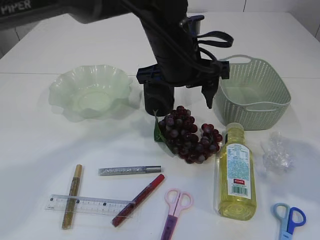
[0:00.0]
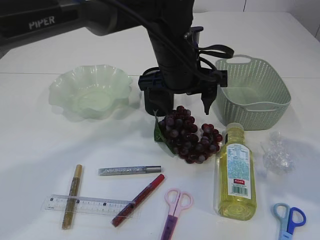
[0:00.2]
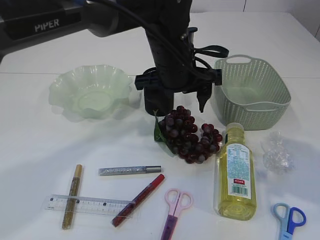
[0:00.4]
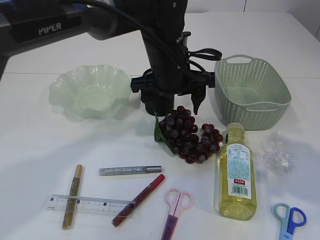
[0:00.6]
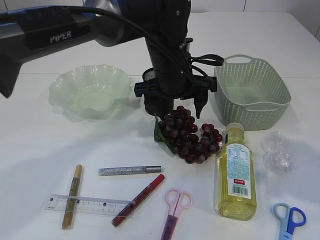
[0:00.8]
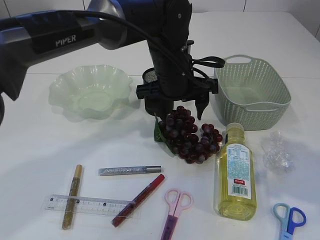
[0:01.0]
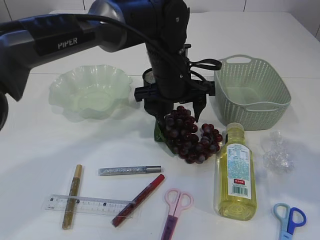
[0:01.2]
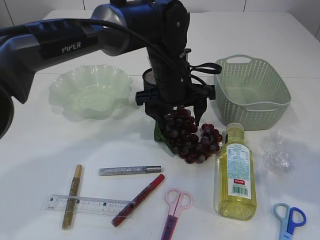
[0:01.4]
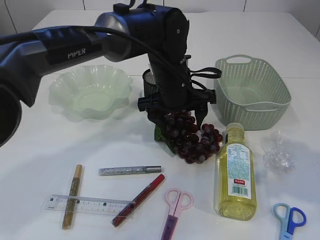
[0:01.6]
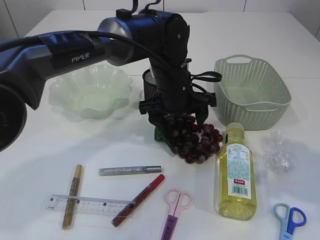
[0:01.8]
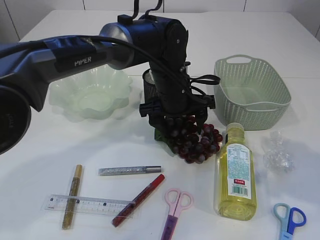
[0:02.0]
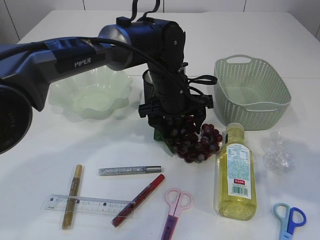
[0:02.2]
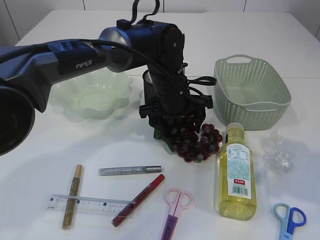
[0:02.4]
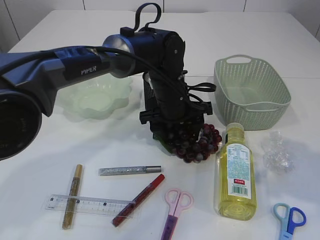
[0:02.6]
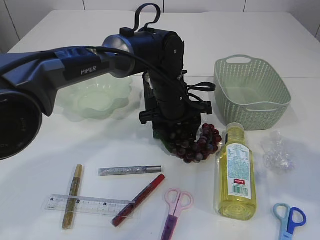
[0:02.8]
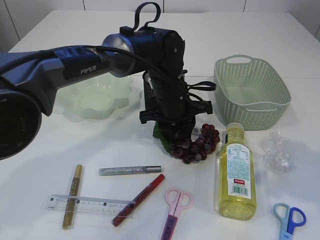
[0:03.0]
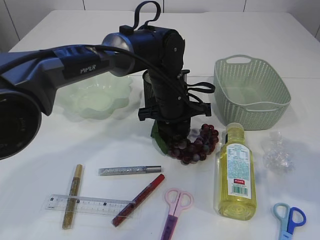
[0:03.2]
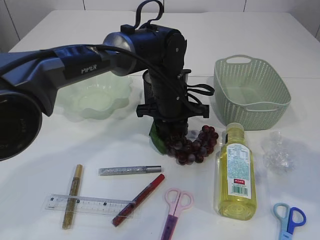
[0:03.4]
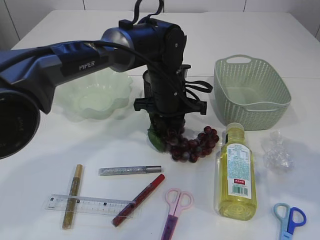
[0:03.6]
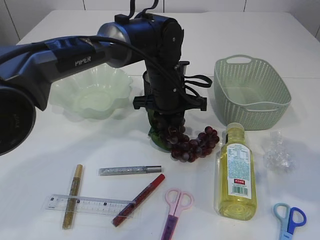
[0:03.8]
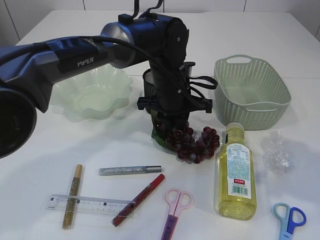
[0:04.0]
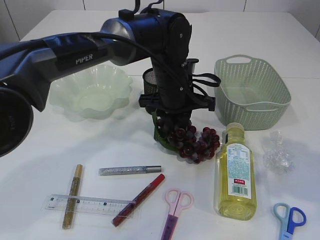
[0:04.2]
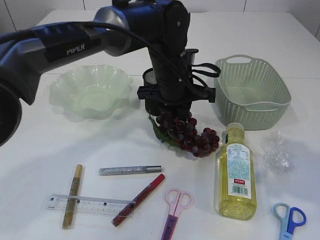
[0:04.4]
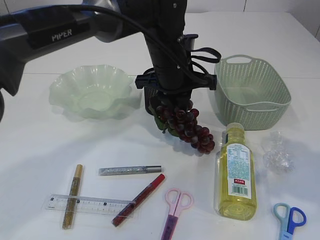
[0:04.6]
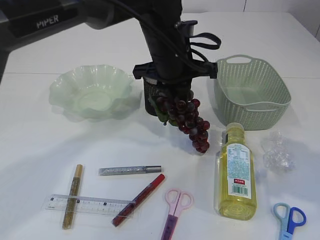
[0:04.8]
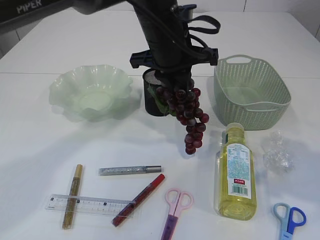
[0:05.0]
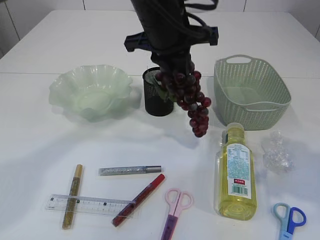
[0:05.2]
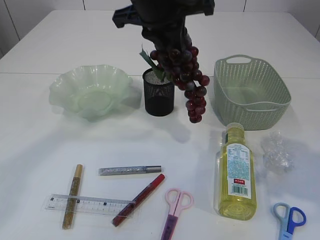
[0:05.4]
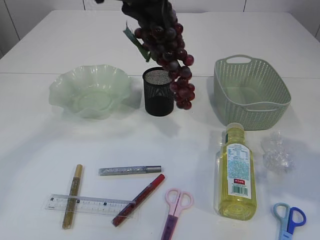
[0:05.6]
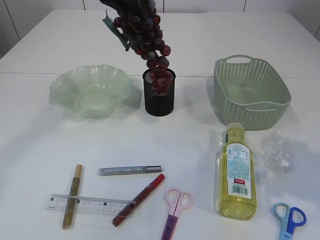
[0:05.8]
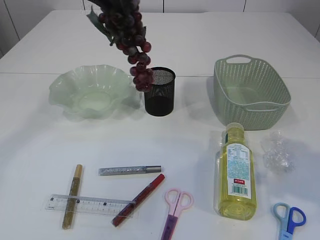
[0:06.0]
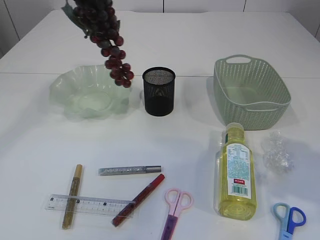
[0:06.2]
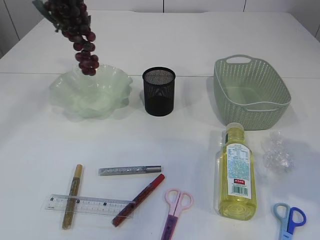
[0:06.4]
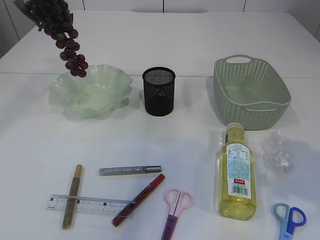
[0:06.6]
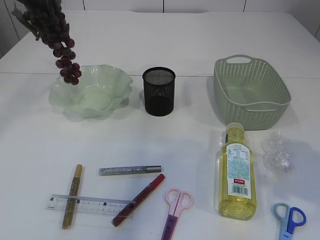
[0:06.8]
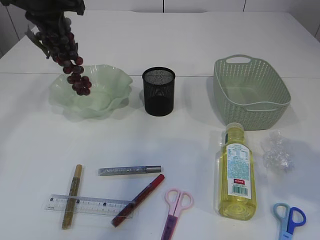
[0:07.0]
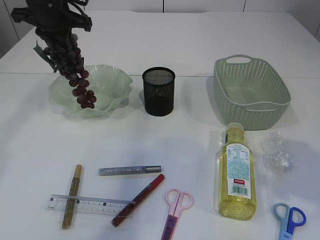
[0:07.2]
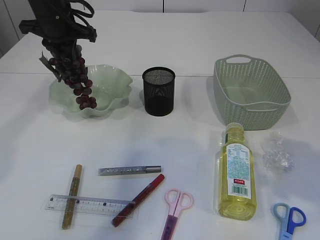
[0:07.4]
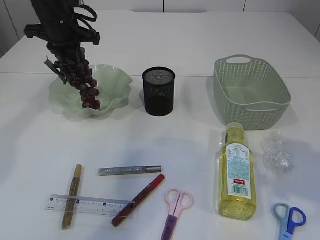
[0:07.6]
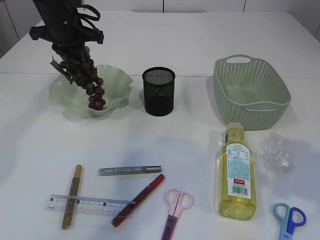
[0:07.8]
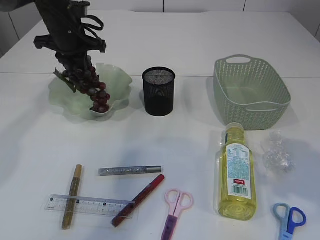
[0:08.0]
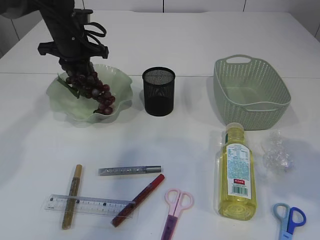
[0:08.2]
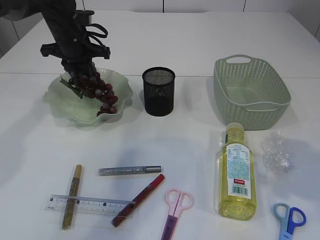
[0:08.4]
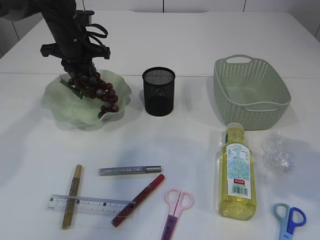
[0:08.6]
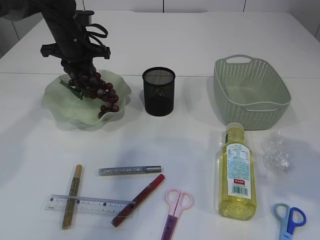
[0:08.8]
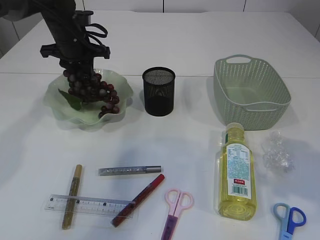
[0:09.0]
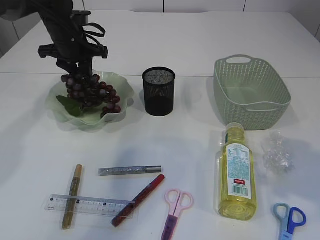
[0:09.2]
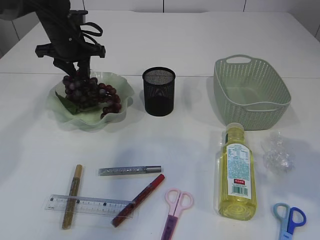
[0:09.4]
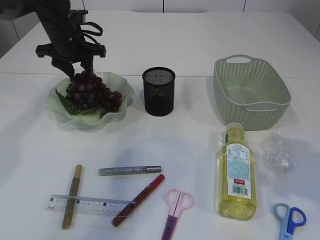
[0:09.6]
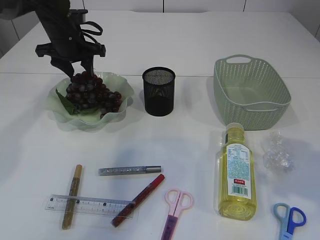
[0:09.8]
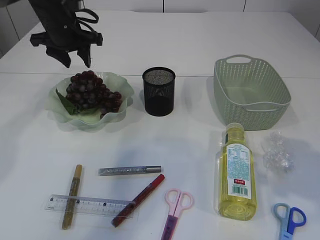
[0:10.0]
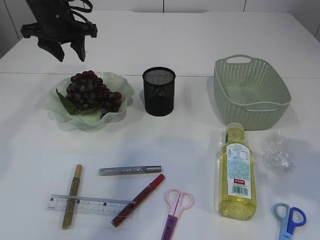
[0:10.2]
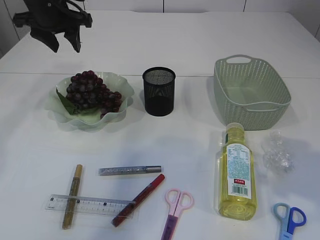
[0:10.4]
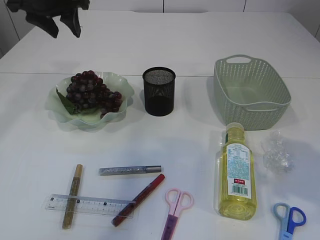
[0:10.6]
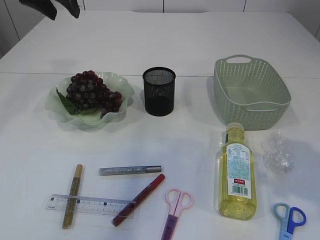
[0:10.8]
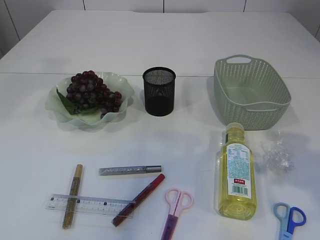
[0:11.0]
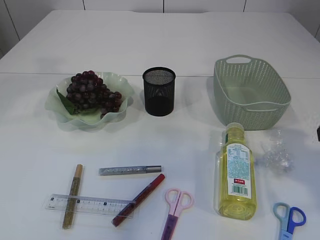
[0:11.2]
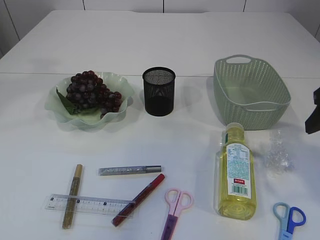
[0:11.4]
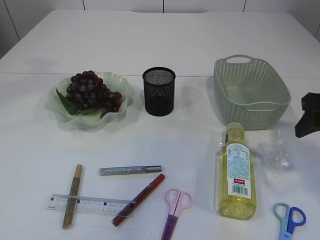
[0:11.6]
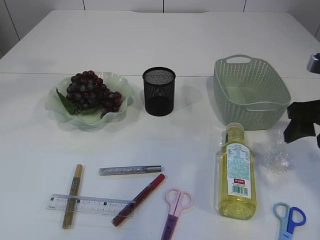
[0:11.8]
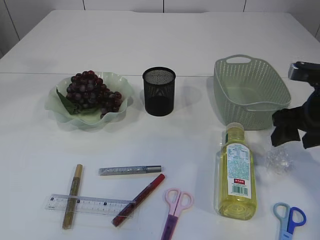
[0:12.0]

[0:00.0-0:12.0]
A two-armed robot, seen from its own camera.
Step, 0:00.0 to 0:05.4: Pick up the grapes.
Step, 0:05.6 to 0:10.0: Place the grapes in the plate.
0:00.0 to 0:01.6: The left gripper heads downward, covering some 10 cm.
0:01.6 to 0:03.0: The left gripper closes.
0:03.0 to 0:04.4: The left gripper shifts approximately 5 cm upward.
0:04.4 to 0:06.0: The left gripper heads upward and to the left, covering some 20 cm.
0:06.0 to 0:07.6: The left gripper heads downward, forward and to the left, covering some 20 cm.
0:07.6 to 0:09.0: There are only small adjustments of the grippers.
0:09.0 to 0:10.4: The left gripper moves upward, approximately 5 cm, and opens.
0:10.4 to 0:12.0: The right gripper shifts some 10 cm forward and downward. The left gripper is displaced upward and backward by approximately 25 cm.

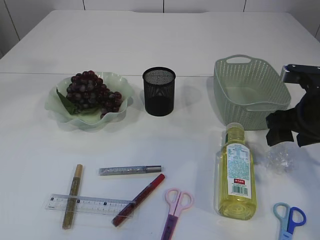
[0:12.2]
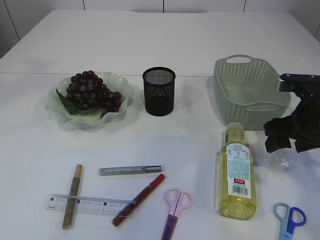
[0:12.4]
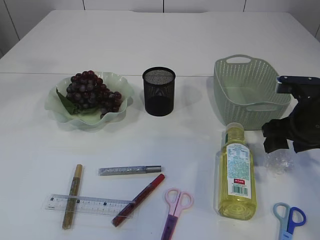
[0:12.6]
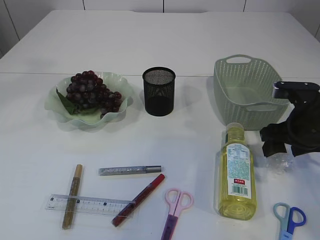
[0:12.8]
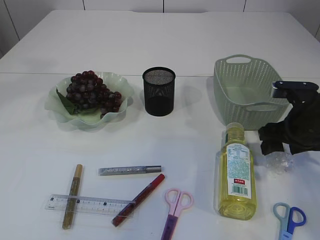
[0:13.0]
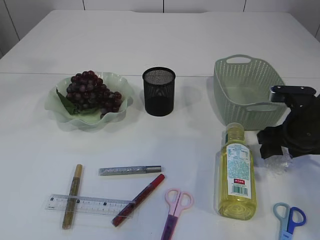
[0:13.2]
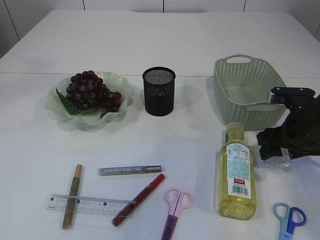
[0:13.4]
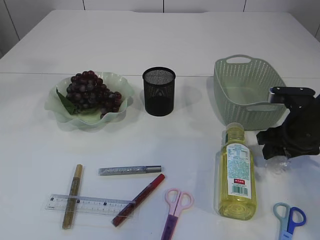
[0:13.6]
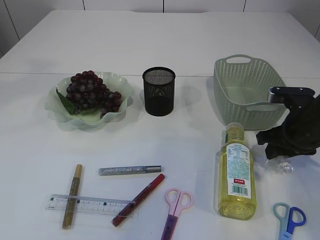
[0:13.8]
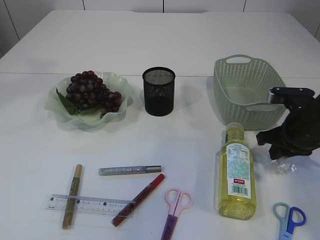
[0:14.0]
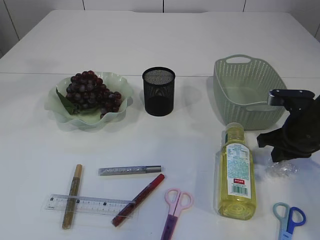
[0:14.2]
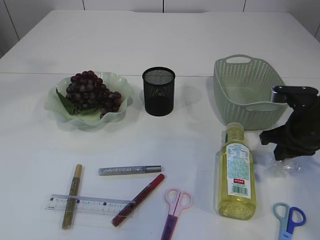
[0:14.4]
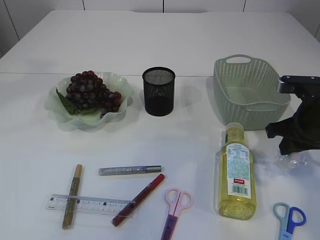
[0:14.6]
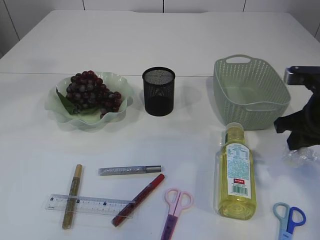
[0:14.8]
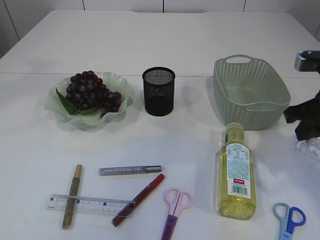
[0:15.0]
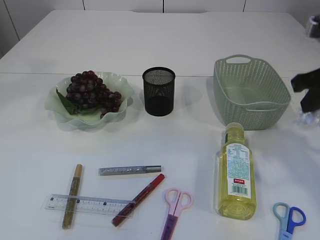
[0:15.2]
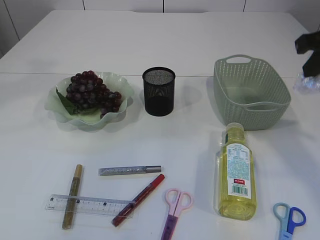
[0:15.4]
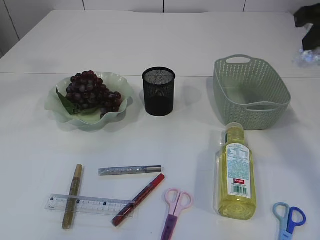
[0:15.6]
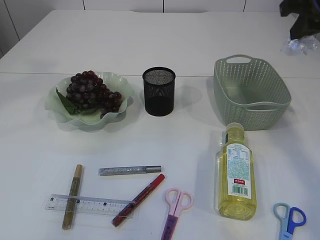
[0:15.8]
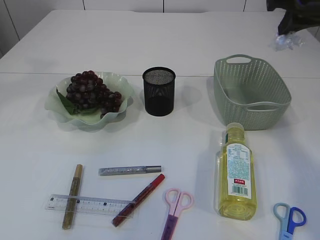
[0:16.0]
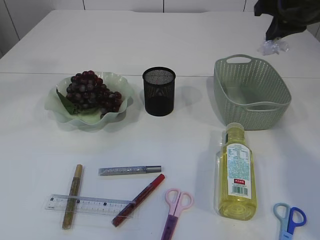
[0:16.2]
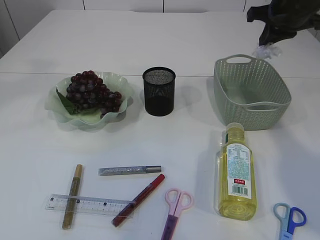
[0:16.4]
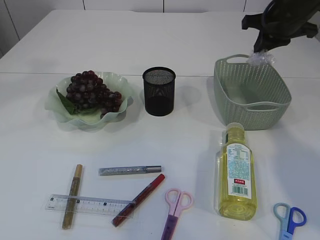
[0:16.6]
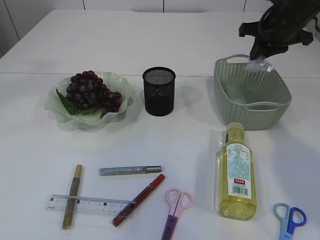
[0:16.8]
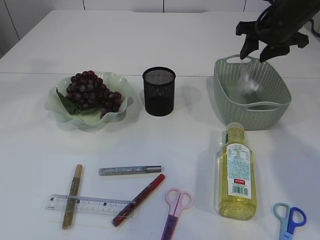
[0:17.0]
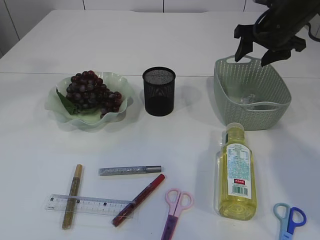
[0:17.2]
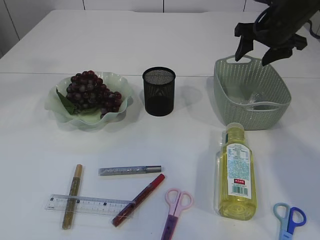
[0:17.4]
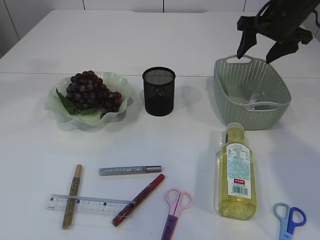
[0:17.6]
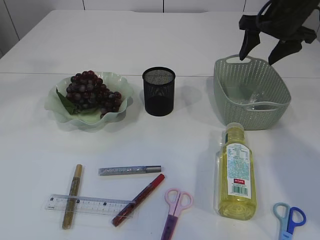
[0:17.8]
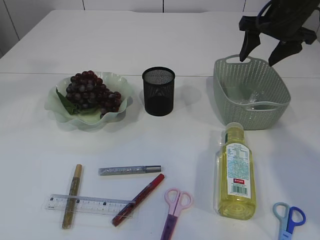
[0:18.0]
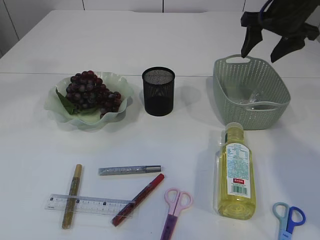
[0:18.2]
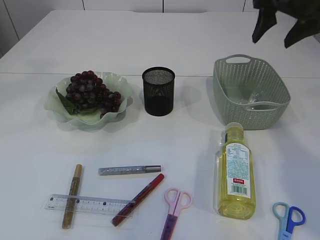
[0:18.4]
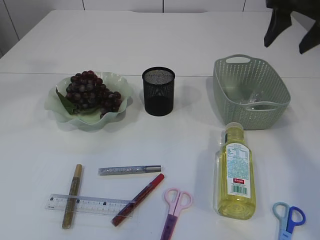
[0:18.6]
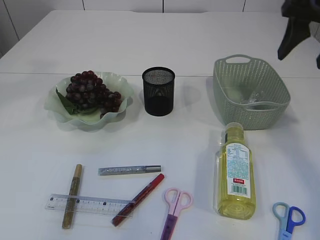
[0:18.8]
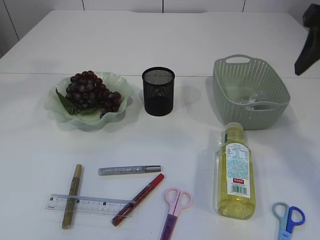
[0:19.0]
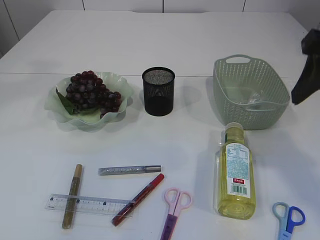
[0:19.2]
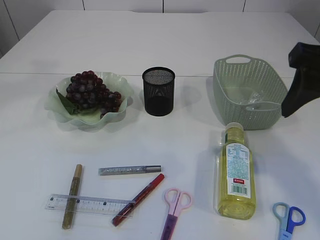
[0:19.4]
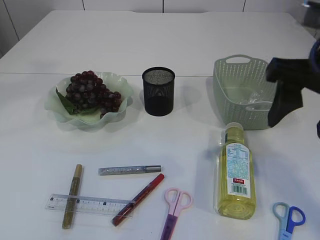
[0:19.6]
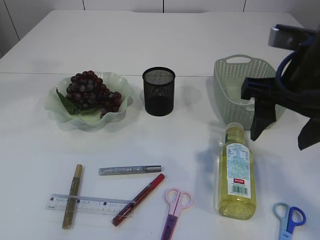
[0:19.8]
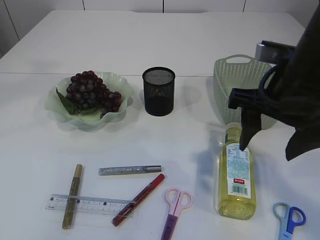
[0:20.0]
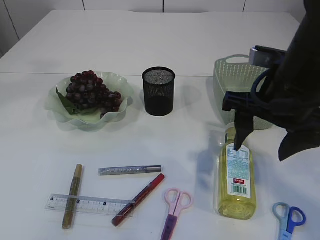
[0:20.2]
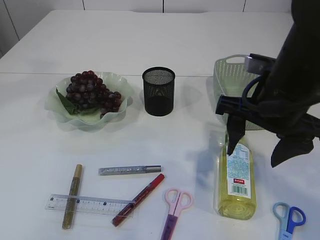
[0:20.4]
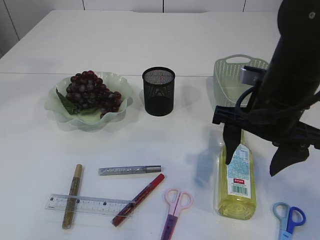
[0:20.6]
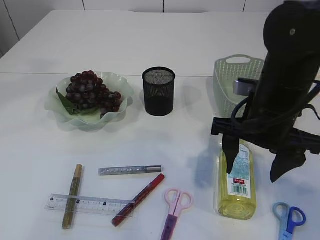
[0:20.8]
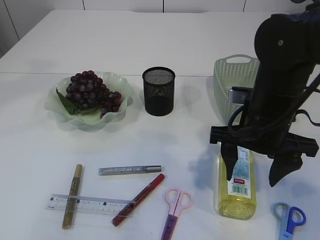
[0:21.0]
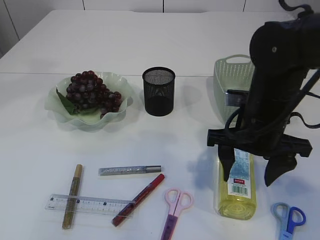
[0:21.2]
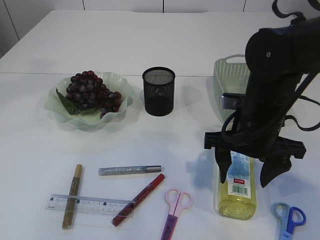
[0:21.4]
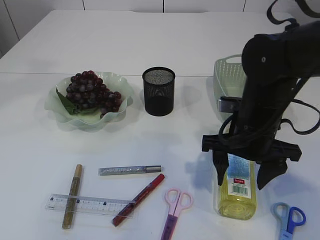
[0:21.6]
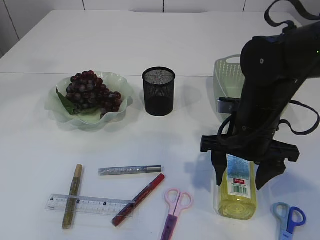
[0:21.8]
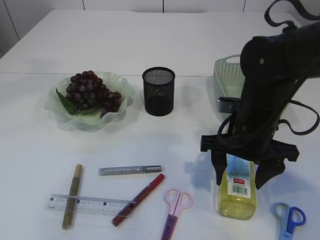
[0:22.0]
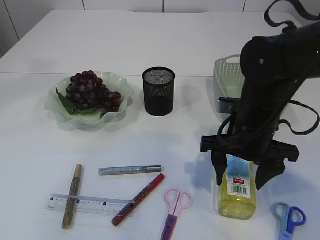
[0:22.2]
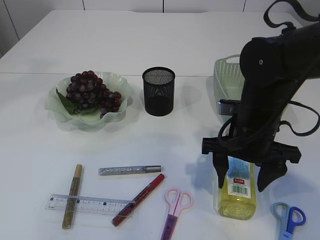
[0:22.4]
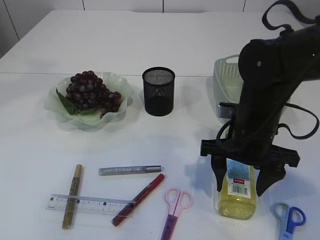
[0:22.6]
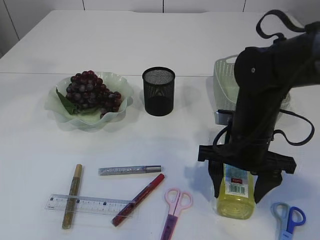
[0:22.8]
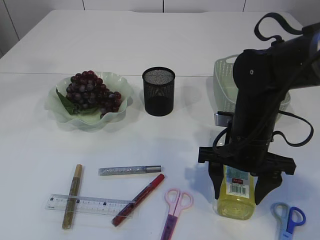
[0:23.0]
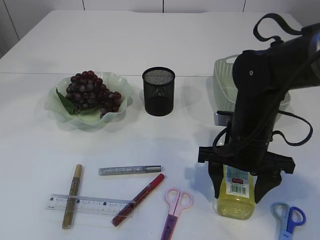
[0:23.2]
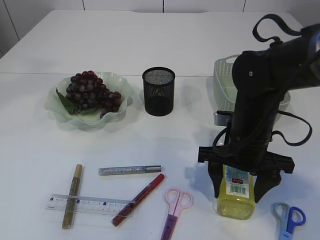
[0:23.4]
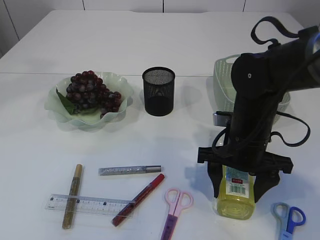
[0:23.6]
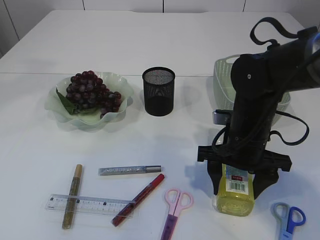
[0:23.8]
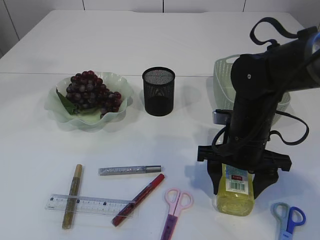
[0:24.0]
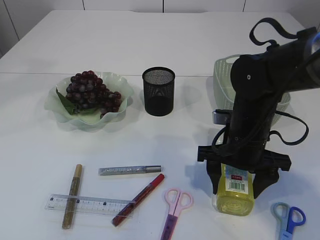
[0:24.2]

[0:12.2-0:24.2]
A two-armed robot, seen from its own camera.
Step, 0:12.2 to 0:14.8: Pick up the plastic.
Step, 0:15.0 to 0:18.2: Place the plastic in the basket.
0:12.2 to 0:13.8: The right gripper goes some 5 cm downward, and closes its fingers.
0:13.8 to 0:15.2: The right gripper moves upward, some 15 cm.
0:15.2 to 0:16.6: The right gripper shifts about 15 cm forward.
0:16.6 to 0:18.2: The right gripper opens its fingers.
0:18.2 to 0:19.8: The right gripper is displaced backward by about 20 cm.
0:19.8 to 0:21.2: The right gripper travels downward by some 10 cm.
0:21.2 to 0:24.2: The grippers move only a little.
